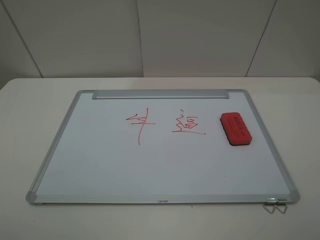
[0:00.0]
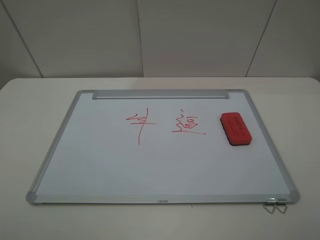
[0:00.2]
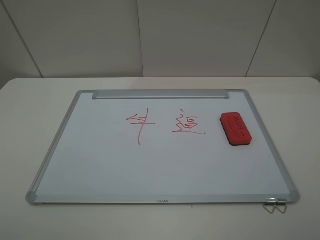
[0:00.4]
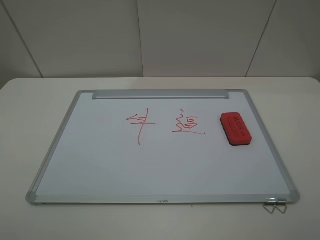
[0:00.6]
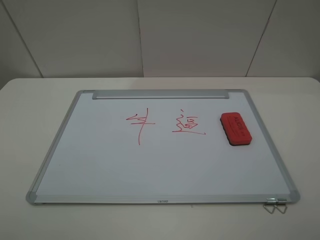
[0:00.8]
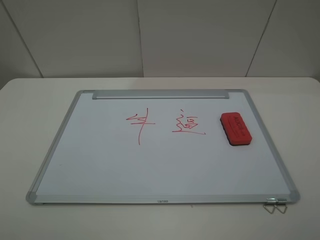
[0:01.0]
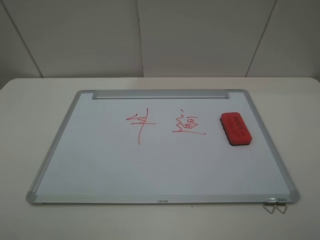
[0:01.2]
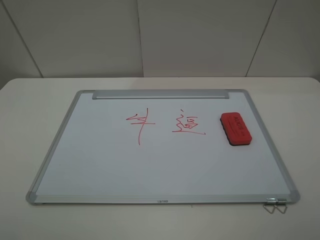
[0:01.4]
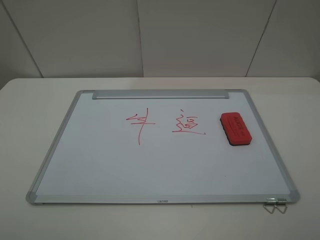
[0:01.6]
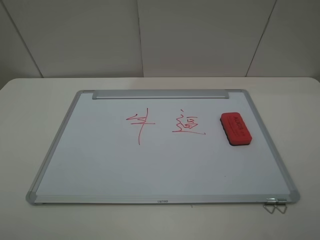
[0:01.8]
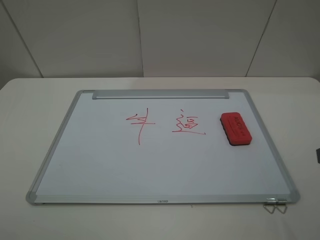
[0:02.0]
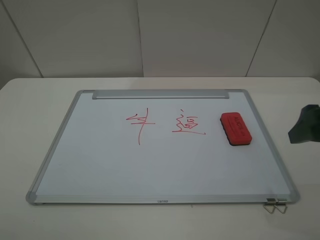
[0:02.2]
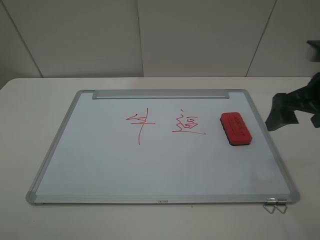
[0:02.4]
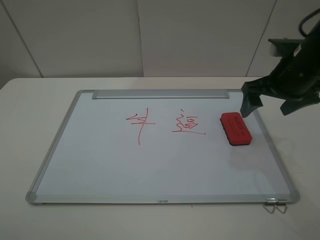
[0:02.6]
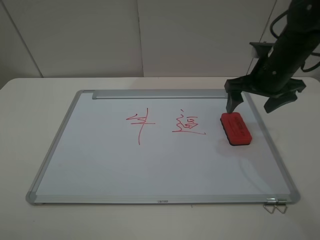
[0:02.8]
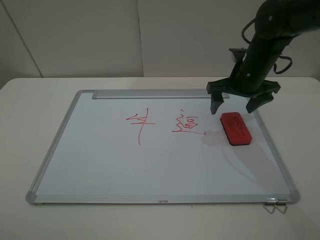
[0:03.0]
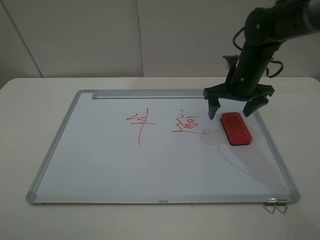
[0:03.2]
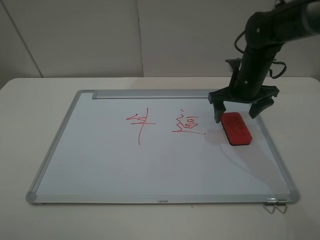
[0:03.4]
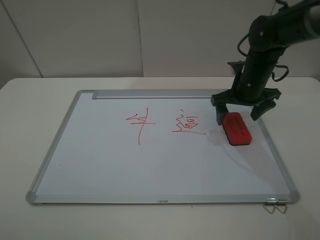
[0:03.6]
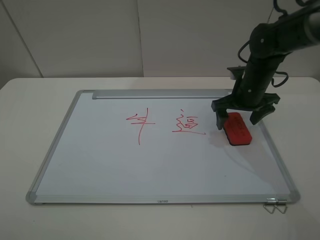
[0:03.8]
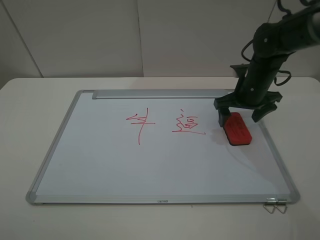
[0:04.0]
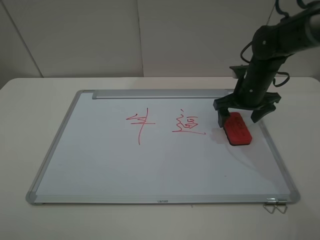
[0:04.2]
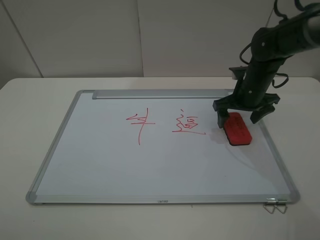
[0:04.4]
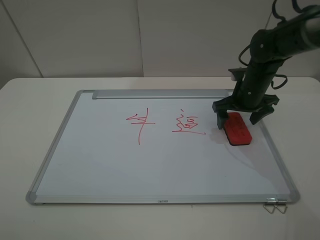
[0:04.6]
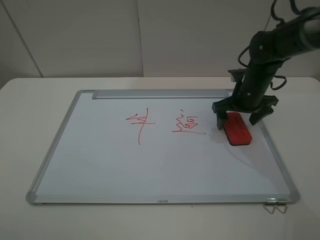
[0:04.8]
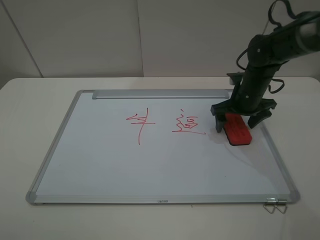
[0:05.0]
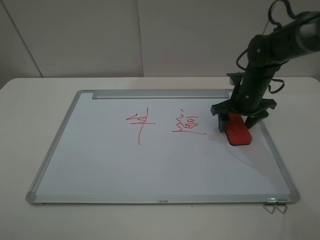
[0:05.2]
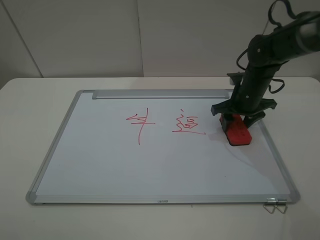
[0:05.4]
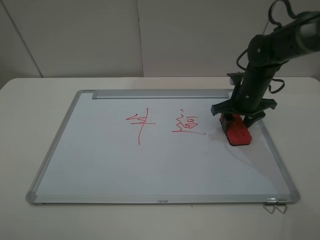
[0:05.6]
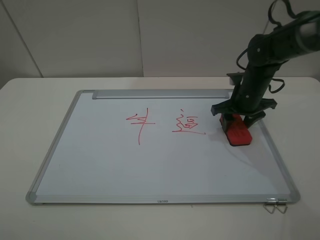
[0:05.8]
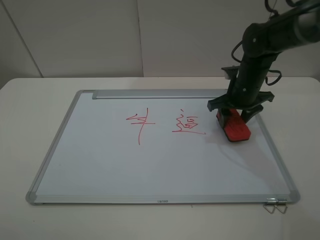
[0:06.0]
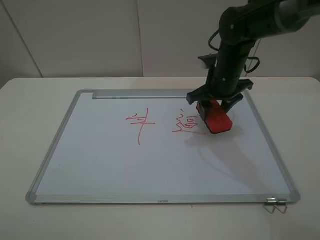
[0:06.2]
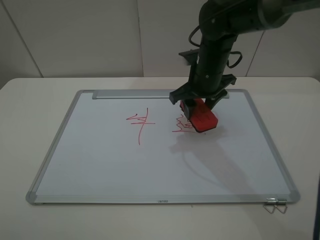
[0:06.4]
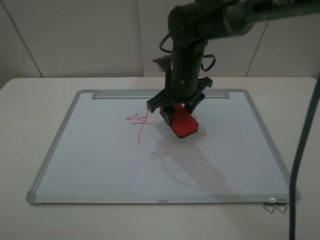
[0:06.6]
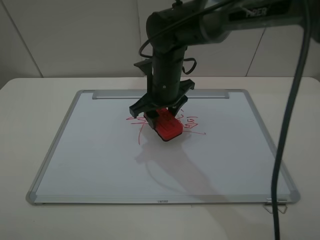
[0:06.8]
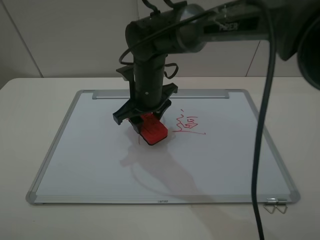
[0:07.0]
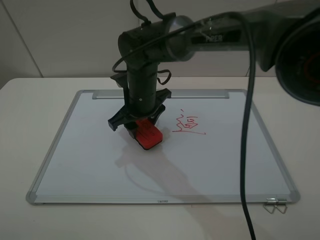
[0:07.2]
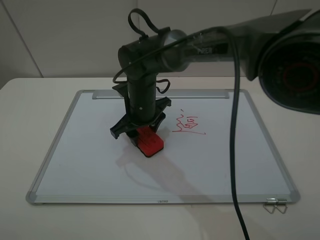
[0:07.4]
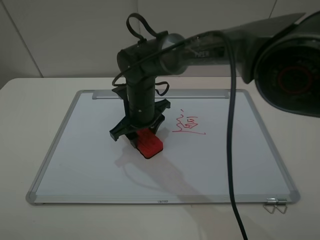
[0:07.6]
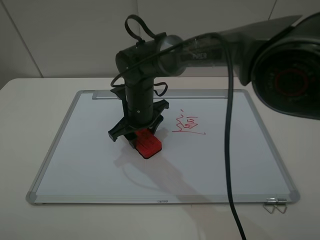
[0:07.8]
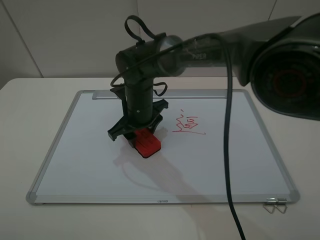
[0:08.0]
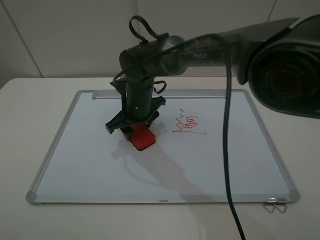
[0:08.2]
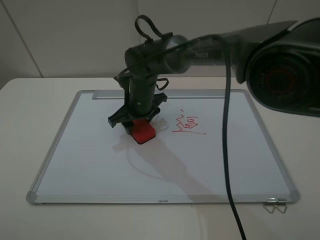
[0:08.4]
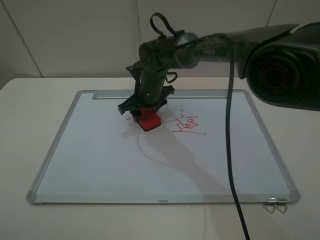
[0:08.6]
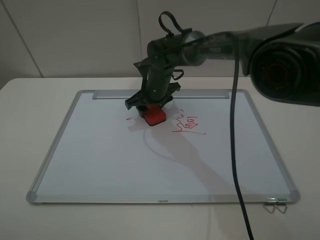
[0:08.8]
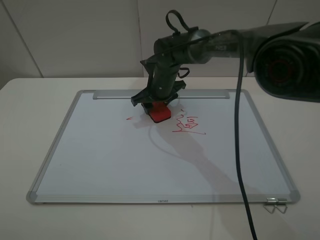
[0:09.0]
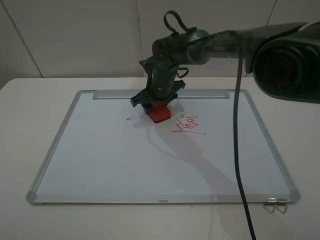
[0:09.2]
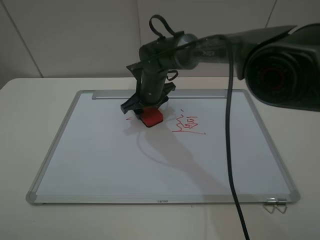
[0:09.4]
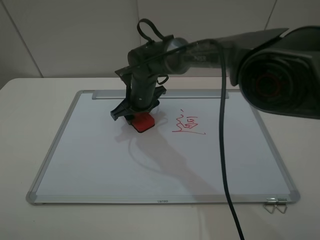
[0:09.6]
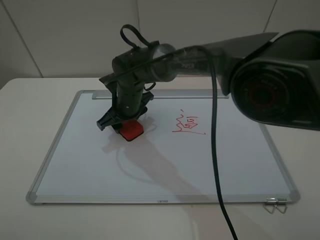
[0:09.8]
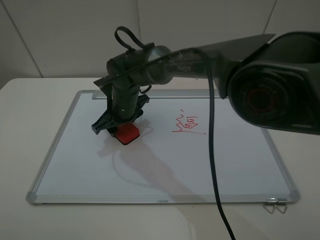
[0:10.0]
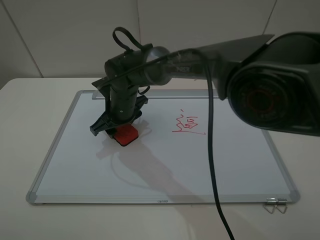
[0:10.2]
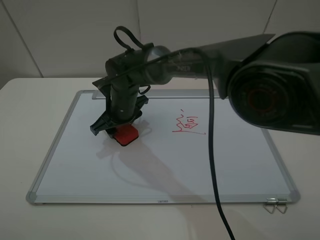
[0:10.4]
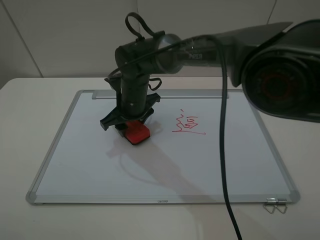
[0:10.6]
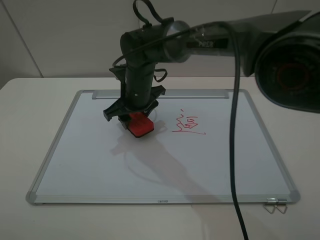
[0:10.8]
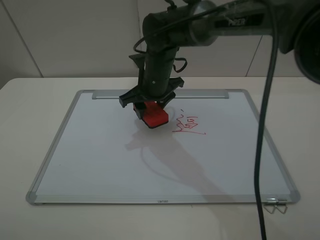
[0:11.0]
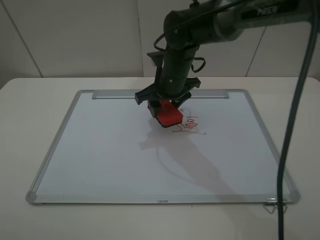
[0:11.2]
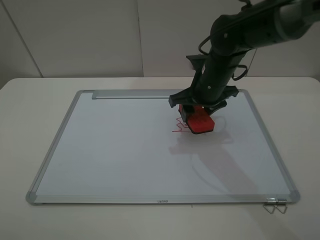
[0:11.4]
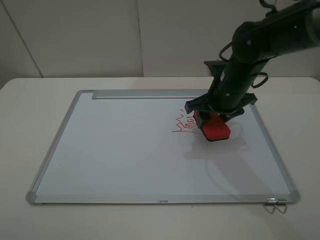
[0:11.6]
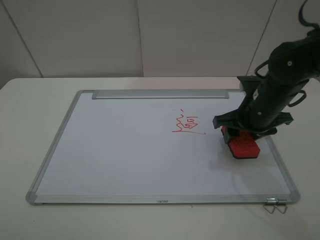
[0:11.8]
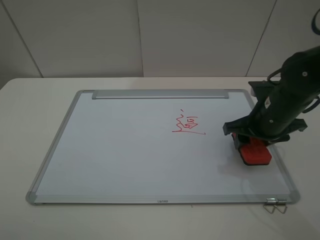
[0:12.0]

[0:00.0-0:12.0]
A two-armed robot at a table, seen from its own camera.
Step, 0:00.0 to 0:05.2: Grasp the eraser with the right gripper.
Step, 0:05.4 to 0:11.0: Grasp the eraser and wipe the blackboard with the right gripper.
0:00.0 to 0:01.6: Both grippers stay put.
0:01.6 to 0:03.0: The right gripper moves forward, approximately 35 cm.
0:03.0 to 0:04.4: The right gripper changes place by roughly 5 cm.
0:04.4 to 0:06.0: The right gripper closes up.
0:06.0 to 0:07.6: The right gripper moves to the left, approximately 25 cm.
0:07.6 to 0:09.0: The right gripper shifts roughly 10 cm forward and to the right.
0:09.0 to 0:10.4: The right gripper heads to the left and backward, covering roughly 10 cm.
0:10.4 to 0:12.0: The right gripper is displaced to the right by some 30 cm.

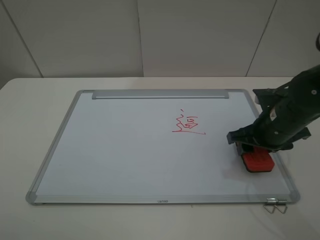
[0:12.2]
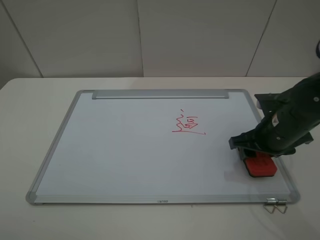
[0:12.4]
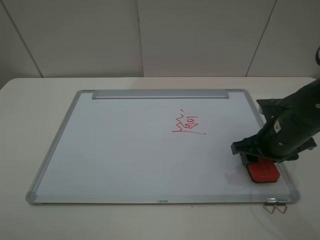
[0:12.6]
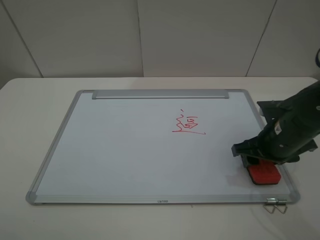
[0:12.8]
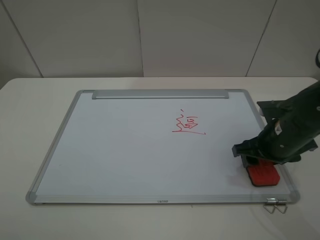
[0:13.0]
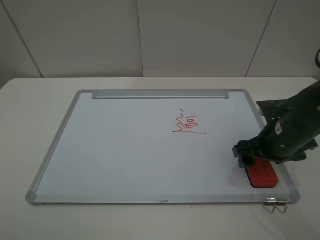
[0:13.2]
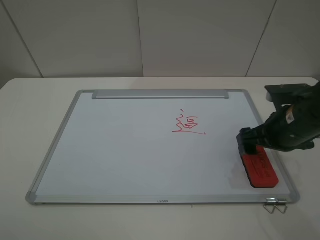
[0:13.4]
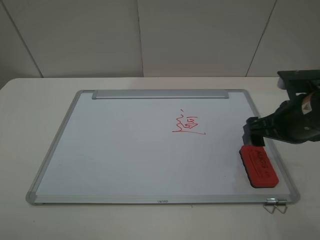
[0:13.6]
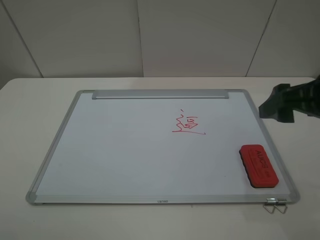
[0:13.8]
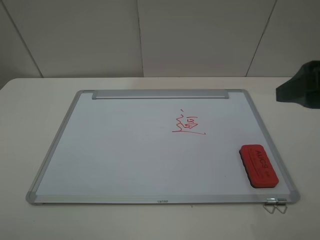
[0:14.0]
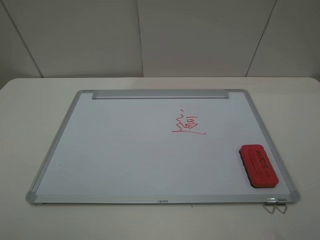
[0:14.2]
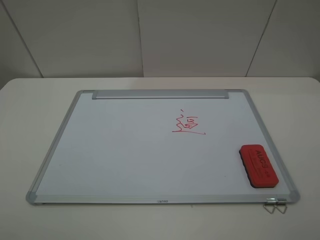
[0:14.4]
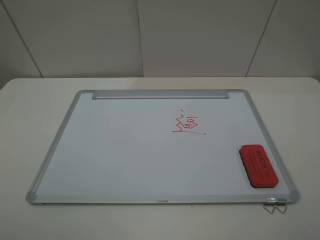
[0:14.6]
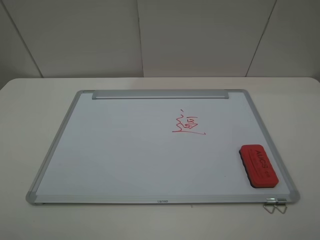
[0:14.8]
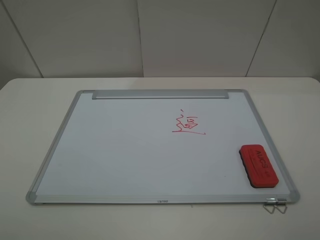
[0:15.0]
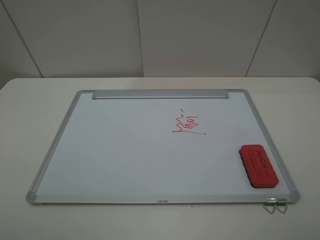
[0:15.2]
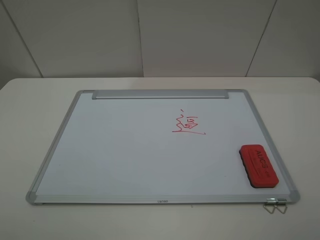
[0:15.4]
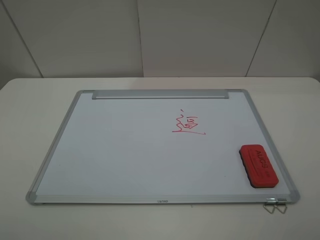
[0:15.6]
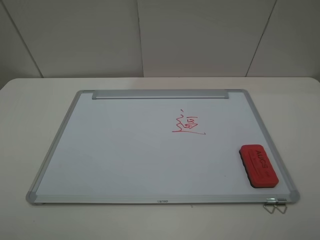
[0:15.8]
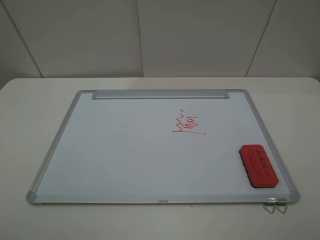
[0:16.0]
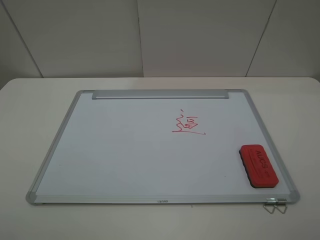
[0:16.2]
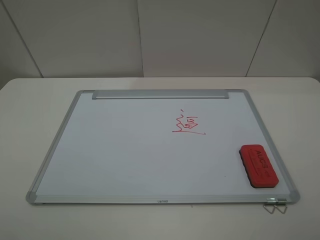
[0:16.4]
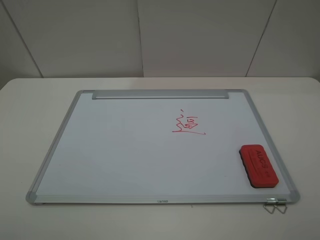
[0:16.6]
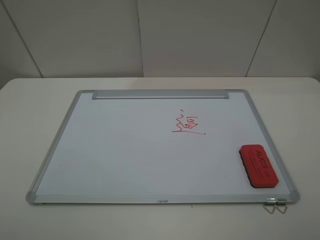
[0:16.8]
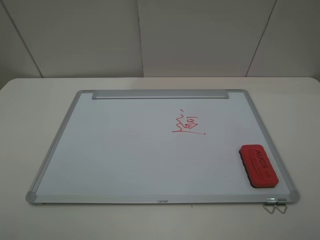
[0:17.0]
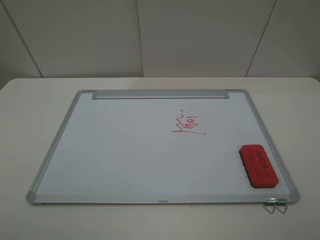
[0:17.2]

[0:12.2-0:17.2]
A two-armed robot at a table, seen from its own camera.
Step, 0:12.2 to 0:13.4: Place the eraser with the right gripper.
0:12.2 to 0:13.8: The right gripper is displaced upward and backward by about 15 cm, and opens up.
0:13.8 to 0:15.6: The right gripper moves backward, approximately 20 cm.

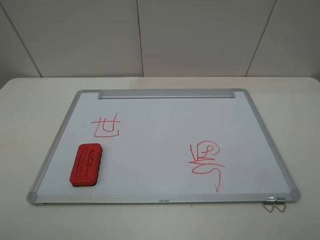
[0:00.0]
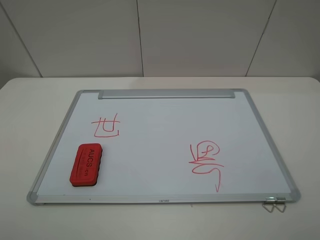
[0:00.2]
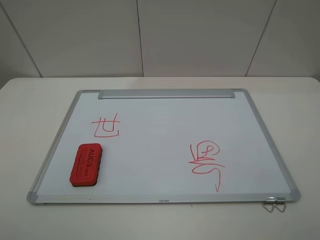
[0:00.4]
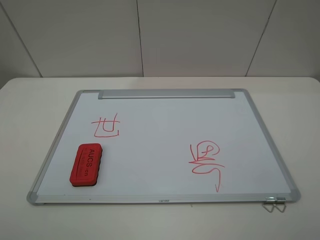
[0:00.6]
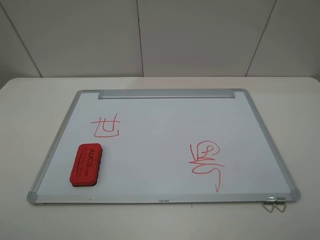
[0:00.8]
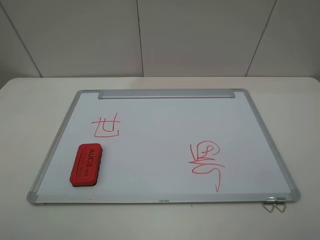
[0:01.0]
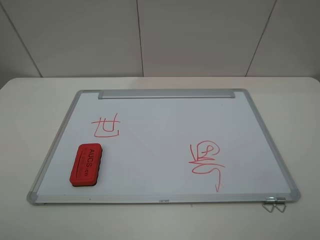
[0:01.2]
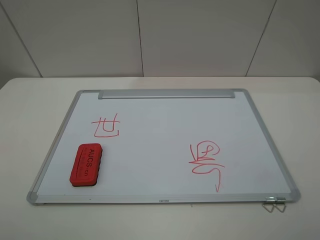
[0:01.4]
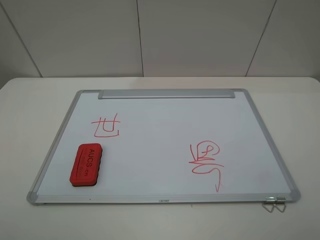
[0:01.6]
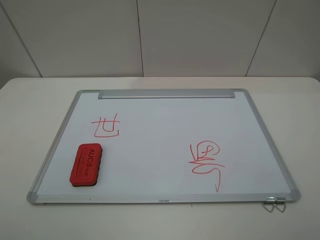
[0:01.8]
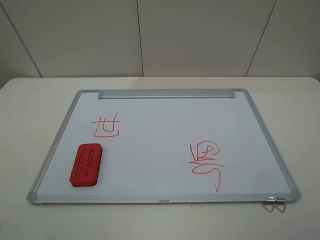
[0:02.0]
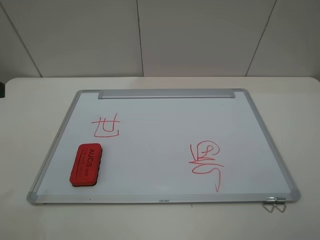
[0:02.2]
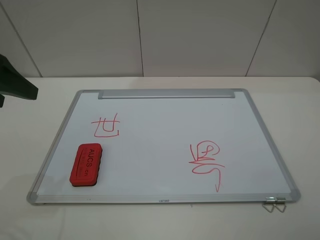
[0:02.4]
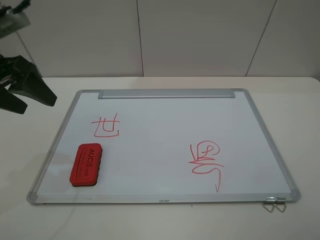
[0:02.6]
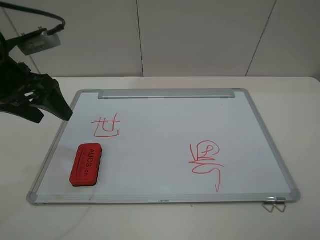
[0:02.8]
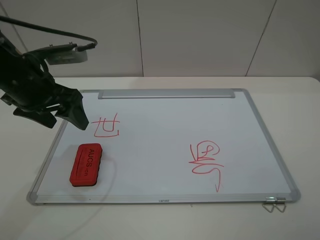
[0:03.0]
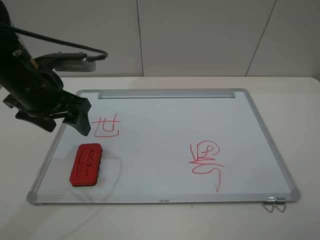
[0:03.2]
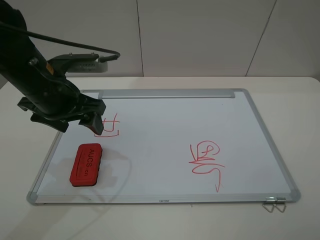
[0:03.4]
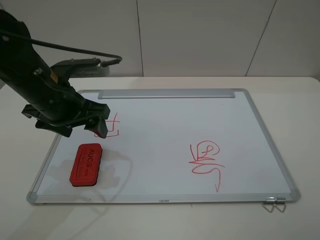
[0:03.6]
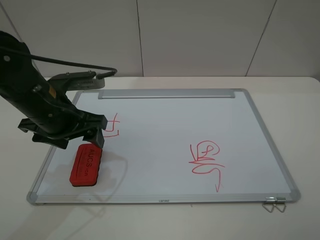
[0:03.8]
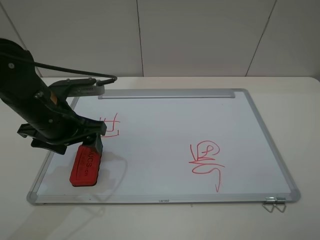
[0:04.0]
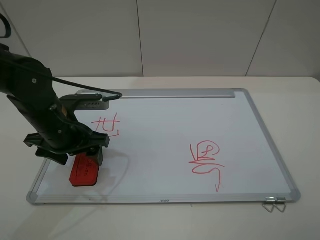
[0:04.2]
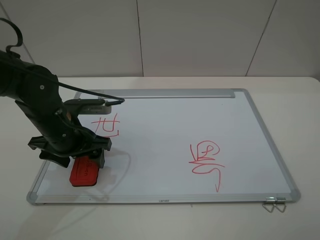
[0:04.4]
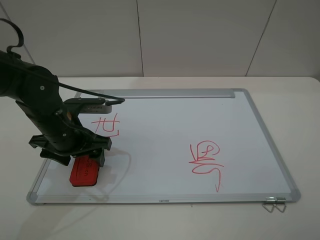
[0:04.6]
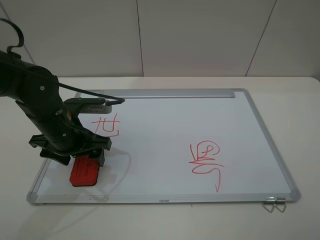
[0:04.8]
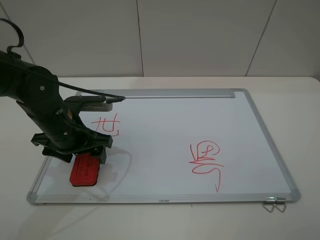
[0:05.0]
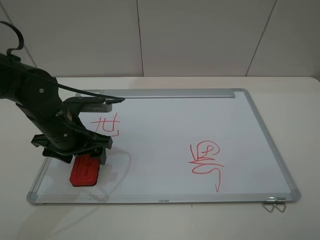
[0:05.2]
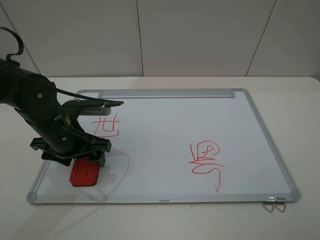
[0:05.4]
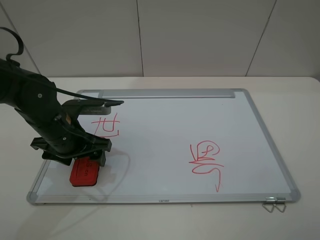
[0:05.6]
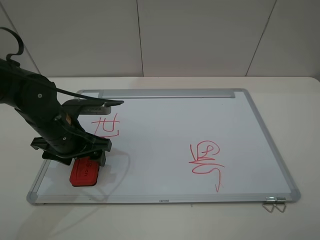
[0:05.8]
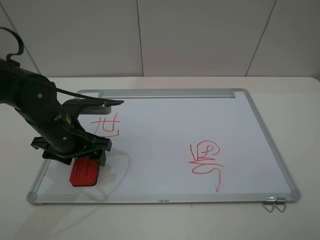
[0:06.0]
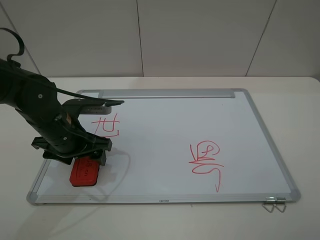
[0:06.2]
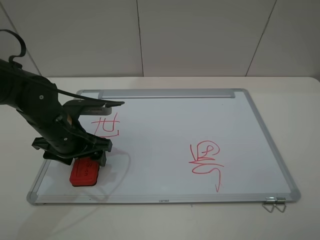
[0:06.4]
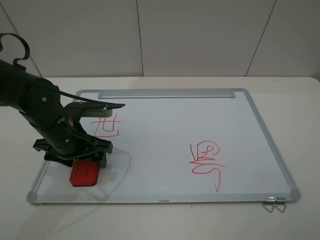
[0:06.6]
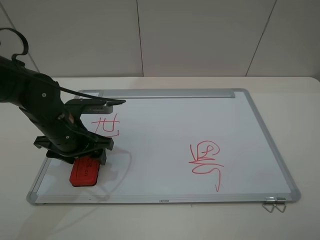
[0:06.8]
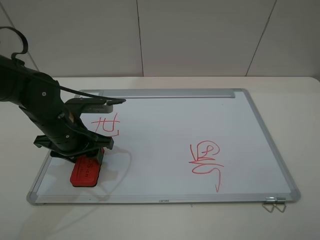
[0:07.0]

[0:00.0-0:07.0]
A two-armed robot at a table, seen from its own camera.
0:00.0 to 0:01.4: Both grippers stay put.
0:01.4 to 0:02.8: The left gripper travels forward by about 25 cm.
0:02.8 to 0:04.2: The left gripper moves downward and to the right, approximately 15 cm.
0:04.2 to 0:05.6: There are only small adjustments of the grippers.
0:05.6 to 0:07.0: The left gripper closes.
